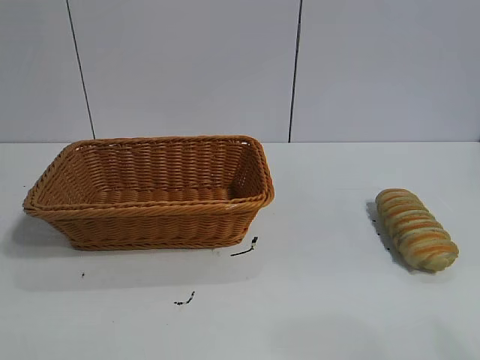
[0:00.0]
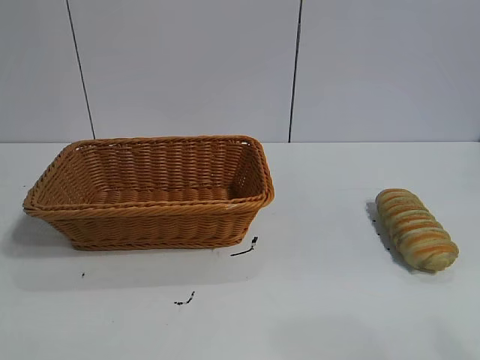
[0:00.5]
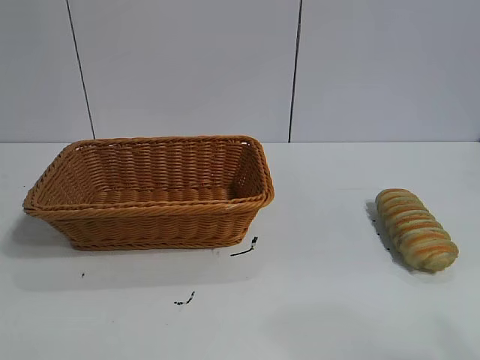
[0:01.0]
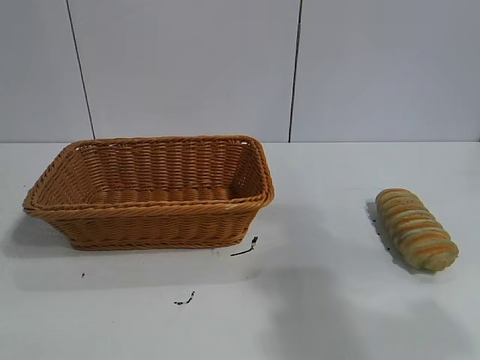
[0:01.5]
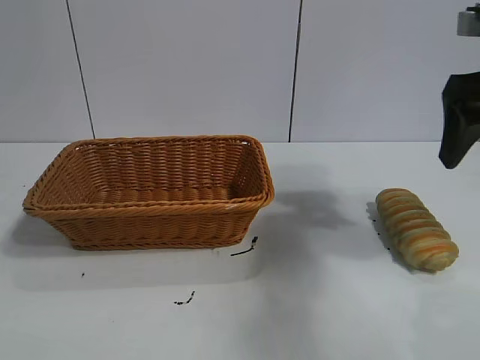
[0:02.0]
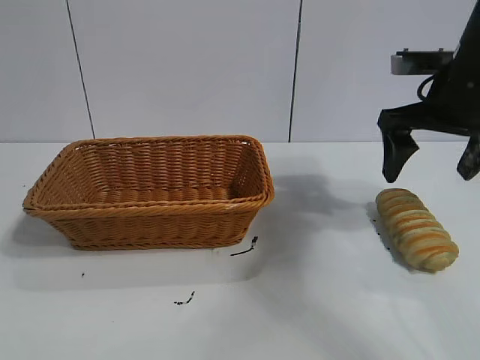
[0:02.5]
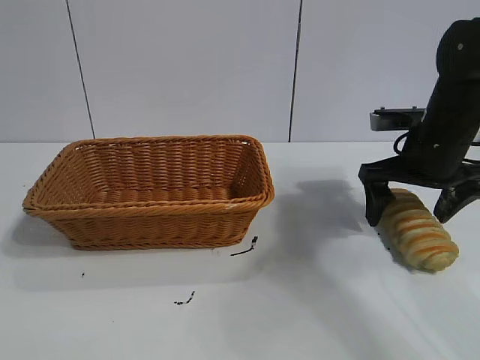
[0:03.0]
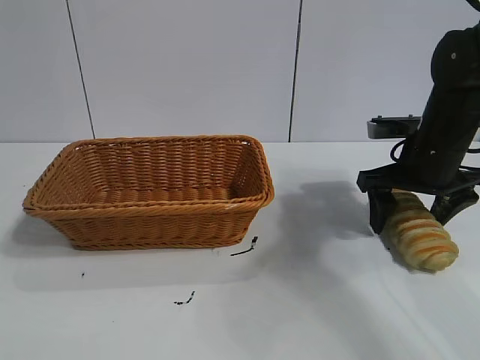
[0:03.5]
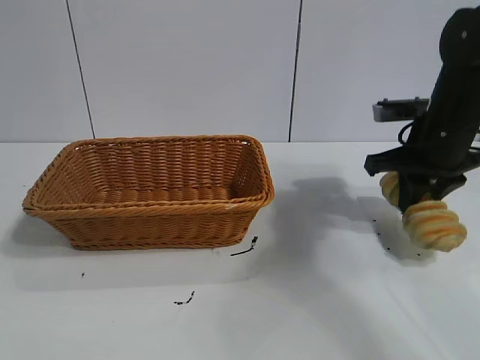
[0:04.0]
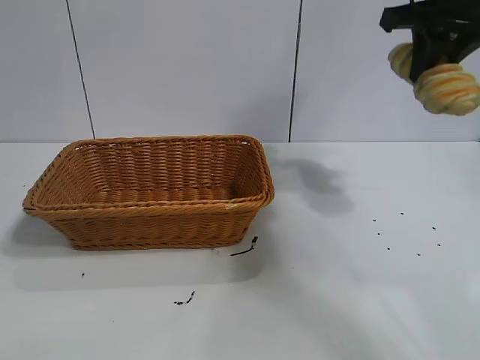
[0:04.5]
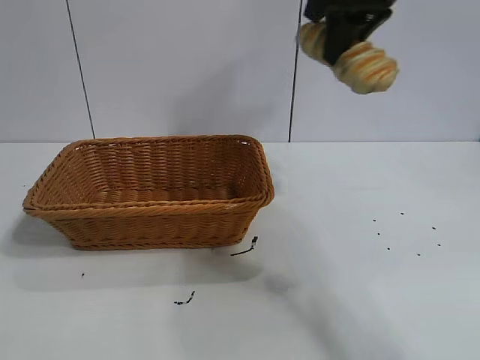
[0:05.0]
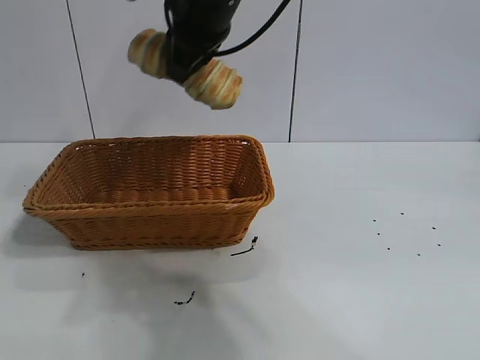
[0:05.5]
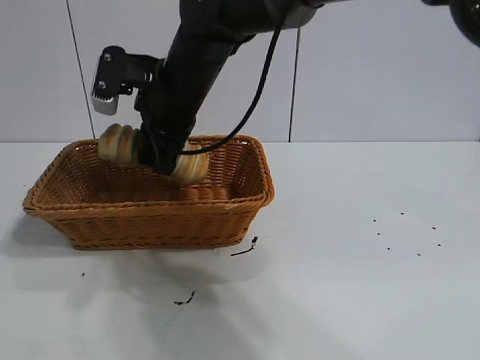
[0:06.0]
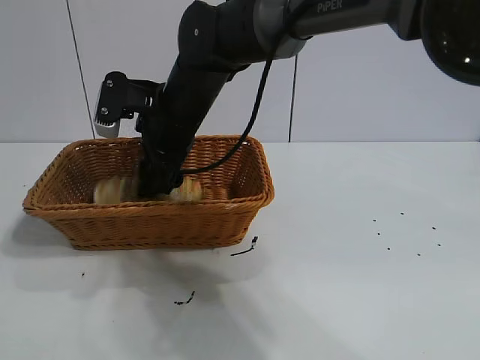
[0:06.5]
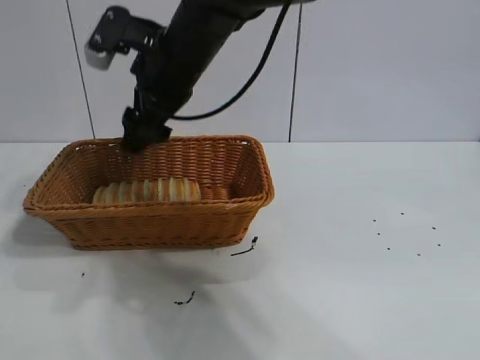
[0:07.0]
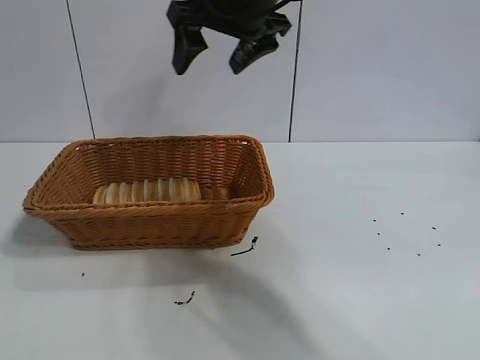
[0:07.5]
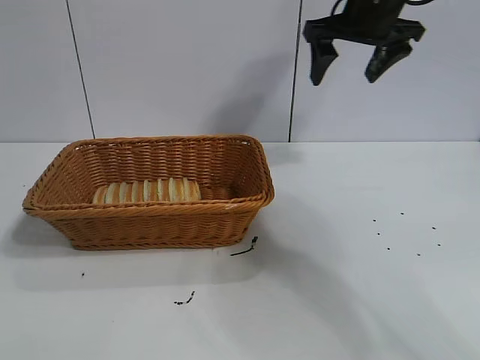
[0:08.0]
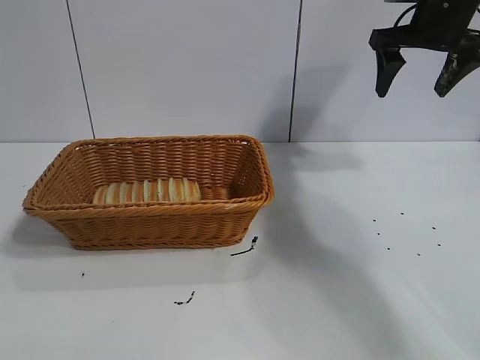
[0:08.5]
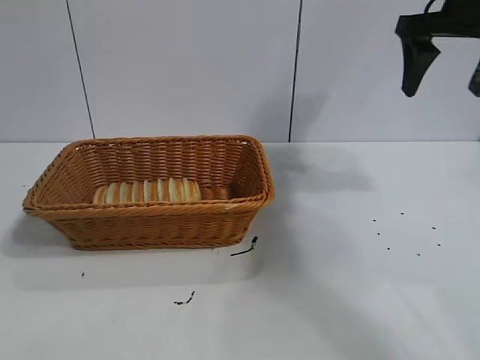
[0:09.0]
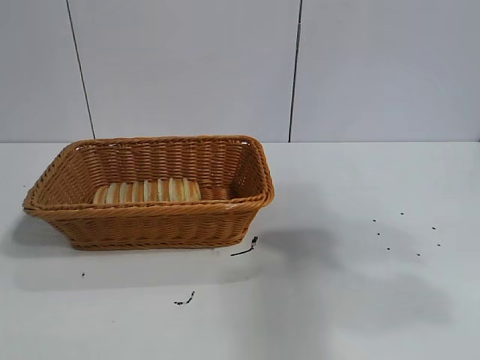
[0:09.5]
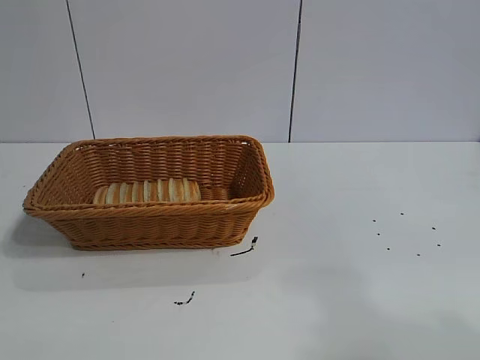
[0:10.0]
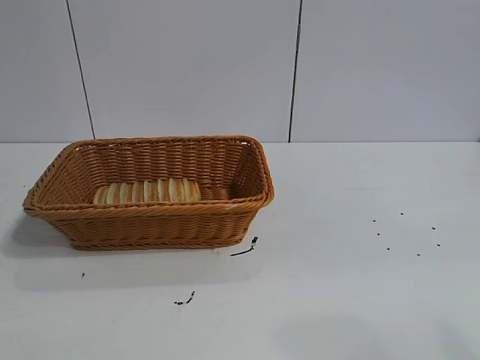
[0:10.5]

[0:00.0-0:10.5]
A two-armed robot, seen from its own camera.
Task of the whole recording: pick up the long bread and put it into the basket.
Step, 0:02.0 to 0:03.5: Grasp the long bread with right gripper.
Step, 0:04.0 to 0:06.5: Place the long bread in the basket with right gripper.
